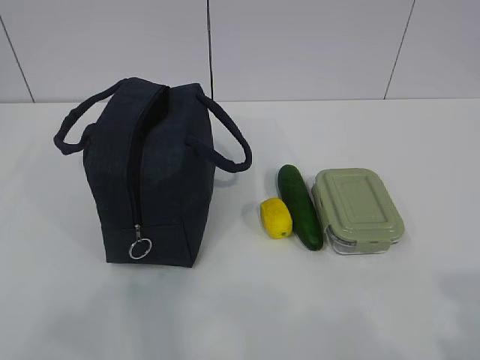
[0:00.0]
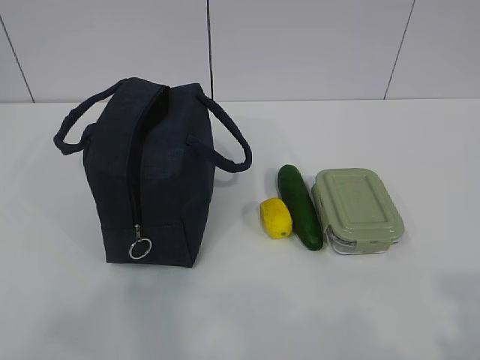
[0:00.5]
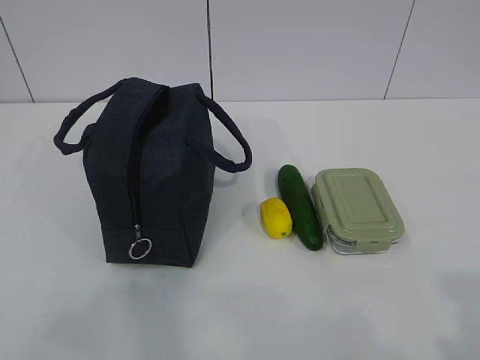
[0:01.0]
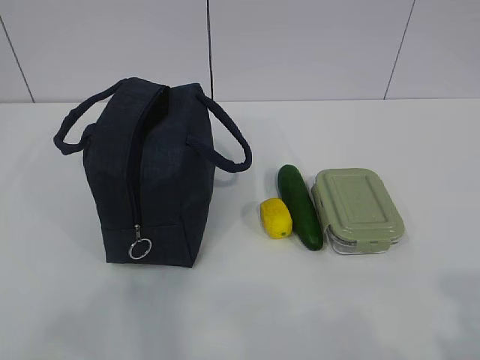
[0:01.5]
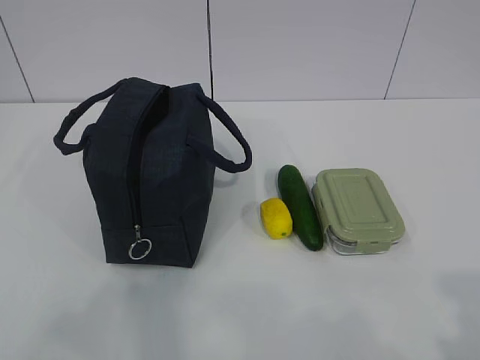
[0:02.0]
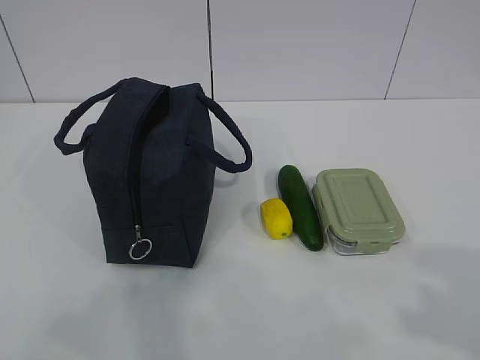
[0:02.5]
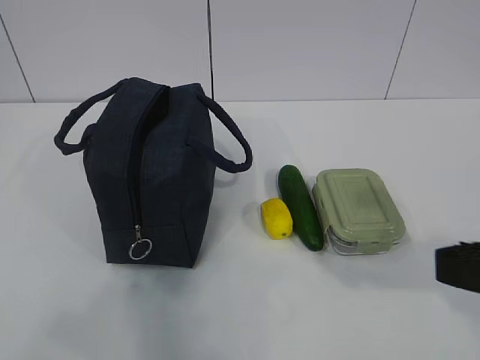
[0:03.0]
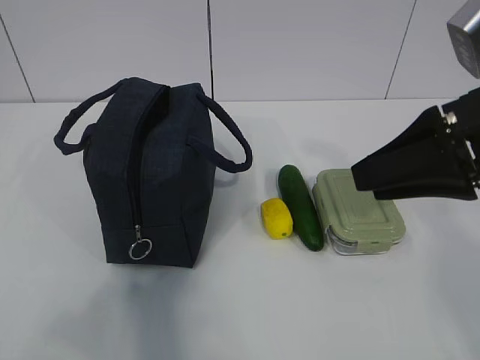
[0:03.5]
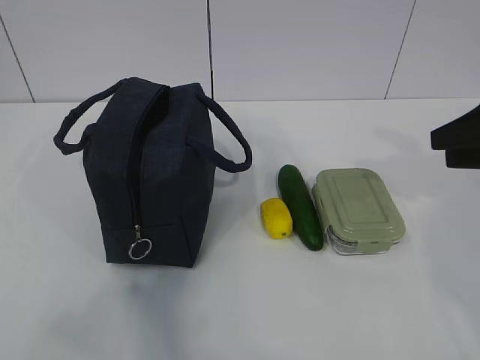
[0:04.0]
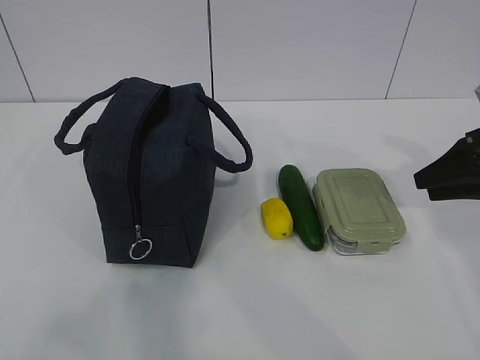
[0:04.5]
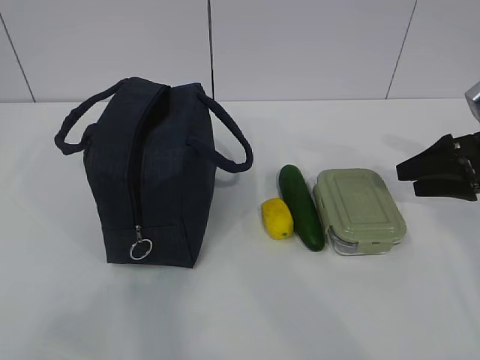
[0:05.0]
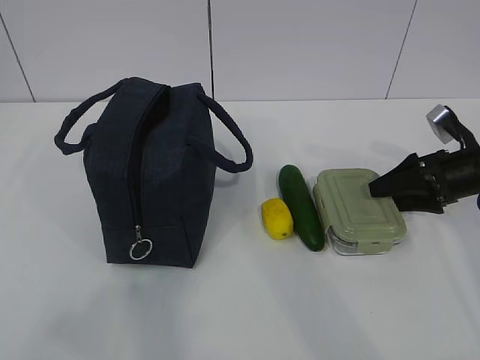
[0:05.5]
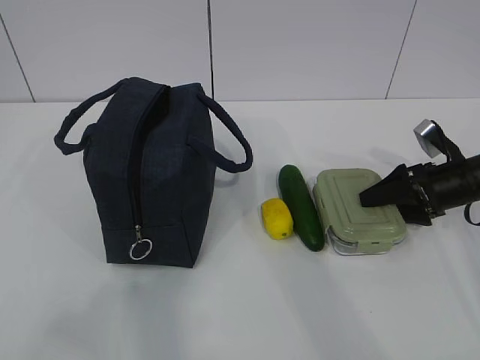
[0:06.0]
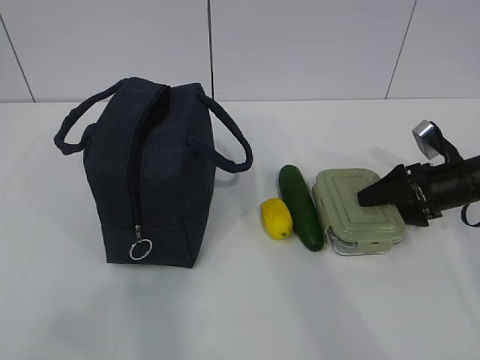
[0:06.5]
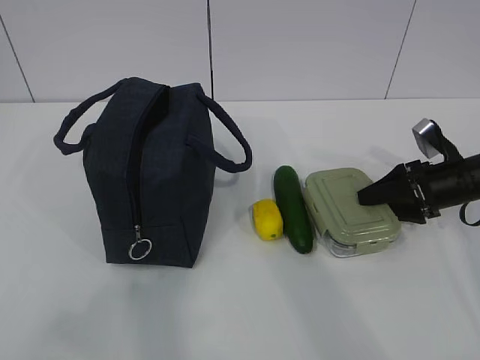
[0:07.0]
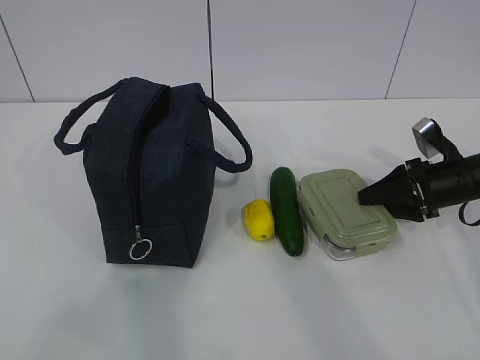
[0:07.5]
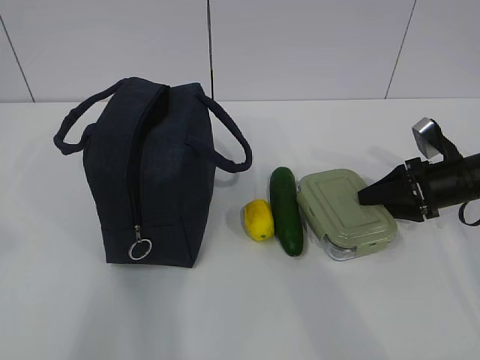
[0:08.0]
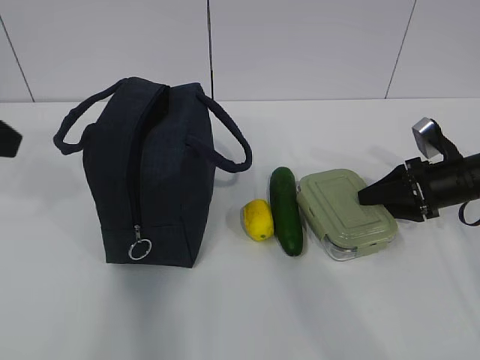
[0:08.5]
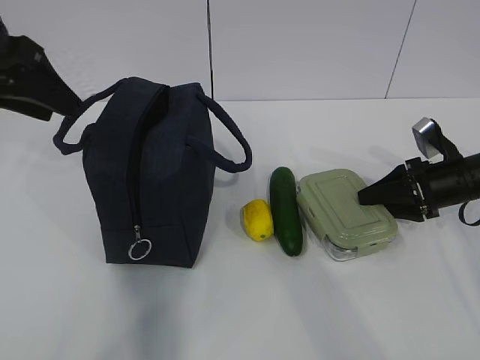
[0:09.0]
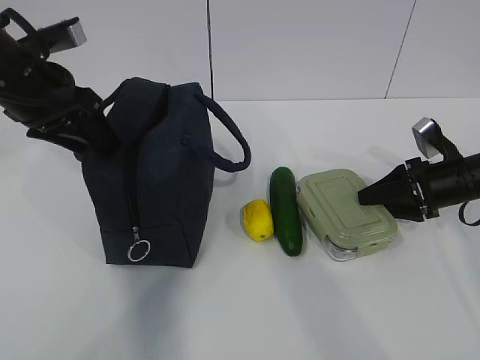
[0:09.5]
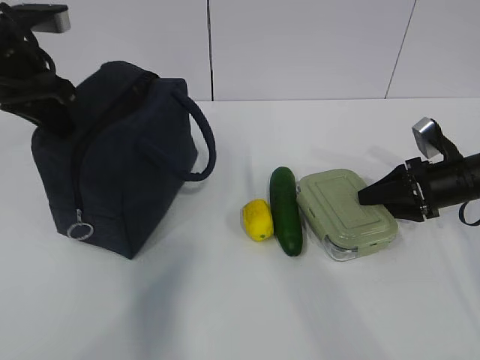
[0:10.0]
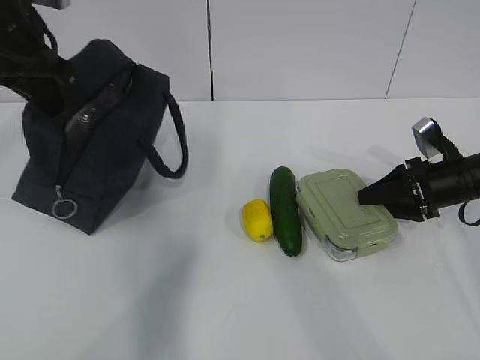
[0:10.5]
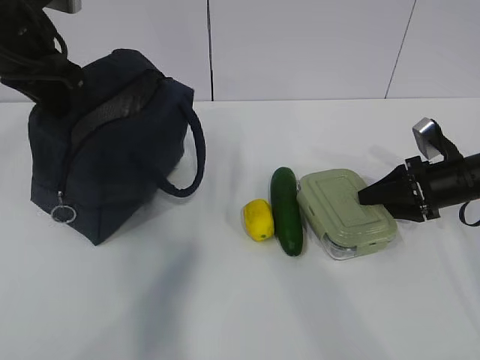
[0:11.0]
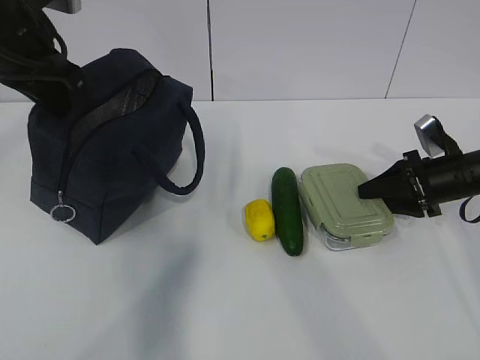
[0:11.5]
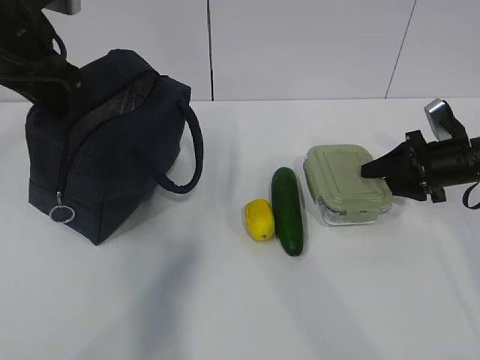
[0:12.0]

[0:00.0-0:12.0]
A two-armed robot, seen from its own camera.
Step, 0:00.0 to 0:06.5: Grasp the box with the right gripper.
Step, 0:07.0 to 0:09.5: Grasp the package with the left gripper.
0:02.0 to 0:04.0: The right gripper moves forward, some 30 cm.
0:04.0 to 0:06.0: The right gripper goes roughly 20 cm downward and forward, and opens up.
0:06.0 to 0:08.0: The left gripper heads forward and upward, covering roughly 10 cm. Meanwhile the right gripper closes.
0:08.0 to 0:10.0: The left gripper heads forward, covering approximately 25 cm, and closes up.
0:10.0 to 0:12.0: The grippers stay close to where they were, moving slightly.

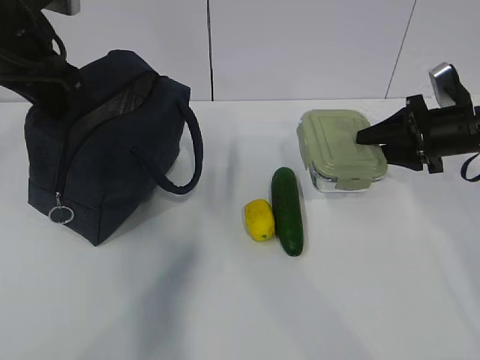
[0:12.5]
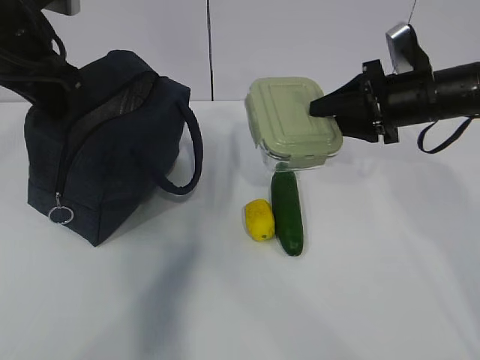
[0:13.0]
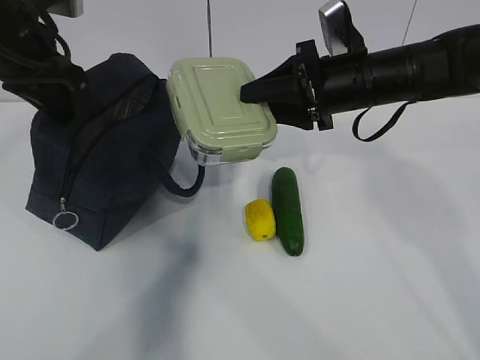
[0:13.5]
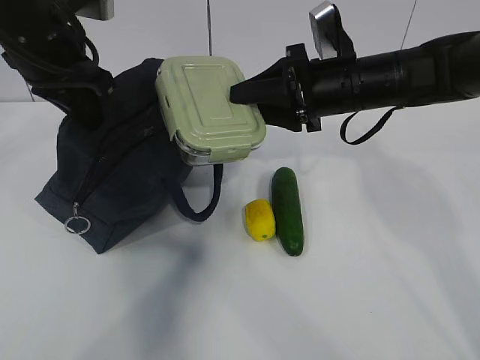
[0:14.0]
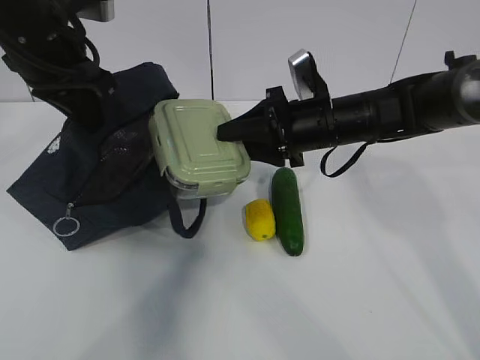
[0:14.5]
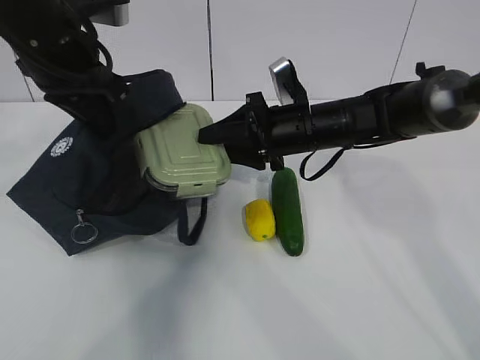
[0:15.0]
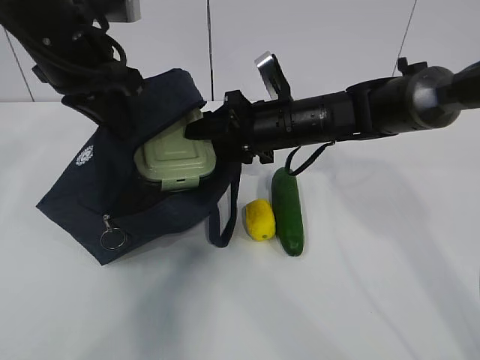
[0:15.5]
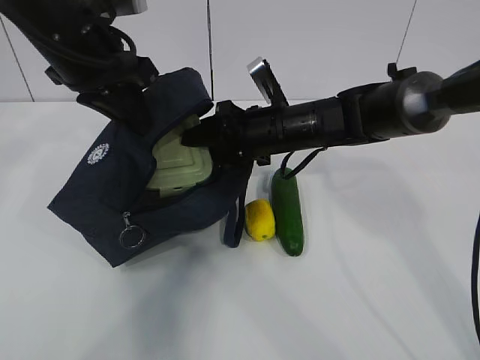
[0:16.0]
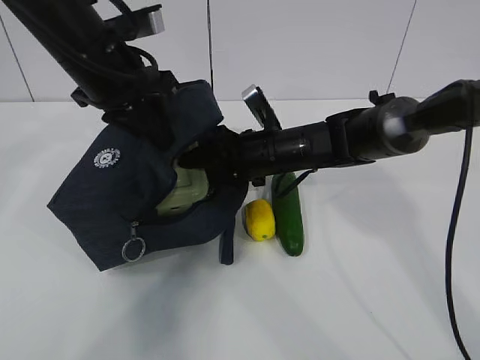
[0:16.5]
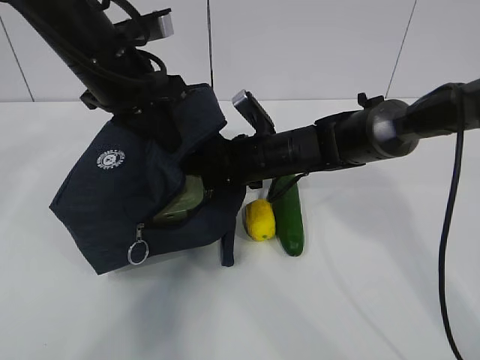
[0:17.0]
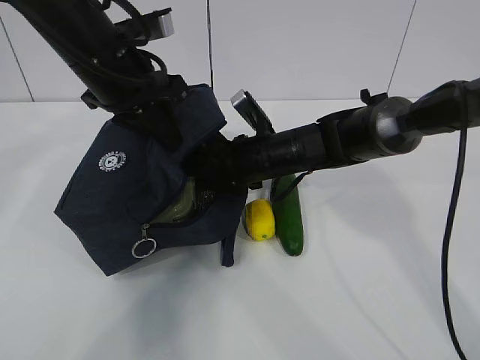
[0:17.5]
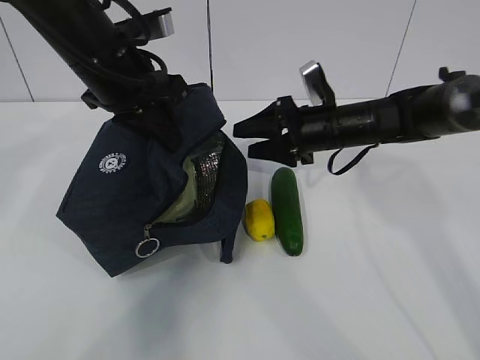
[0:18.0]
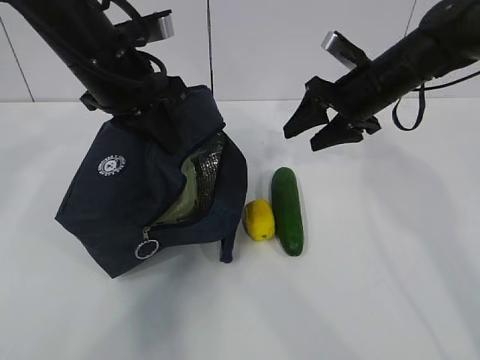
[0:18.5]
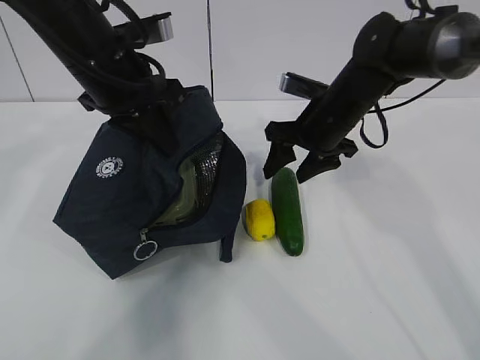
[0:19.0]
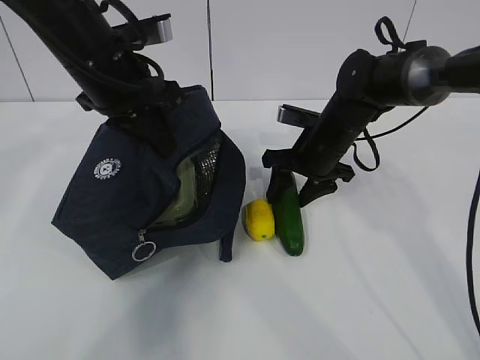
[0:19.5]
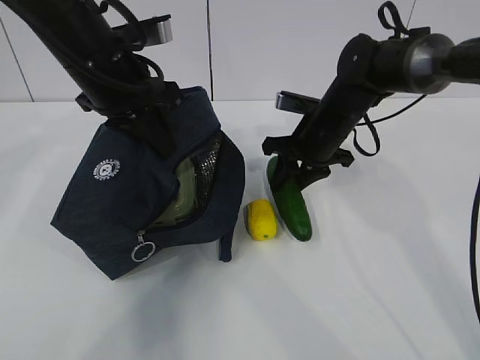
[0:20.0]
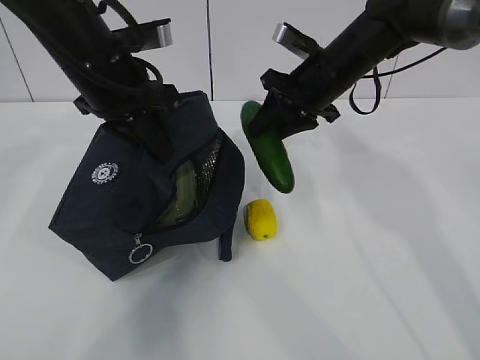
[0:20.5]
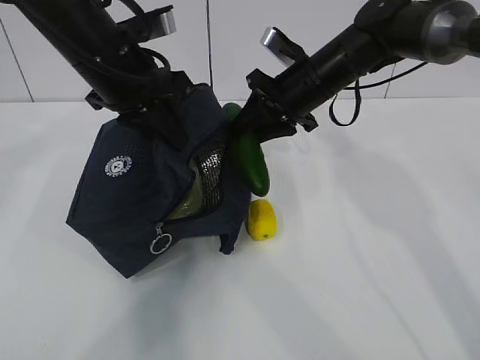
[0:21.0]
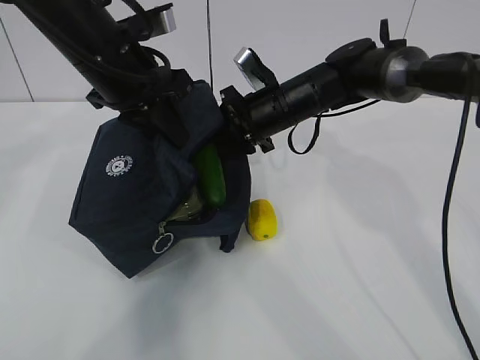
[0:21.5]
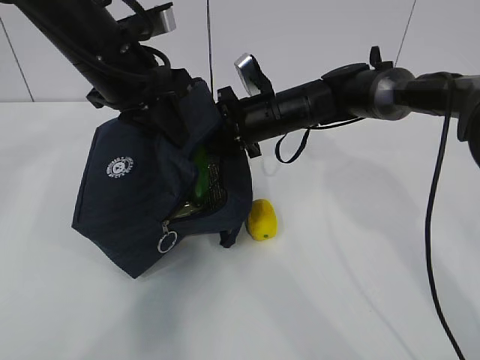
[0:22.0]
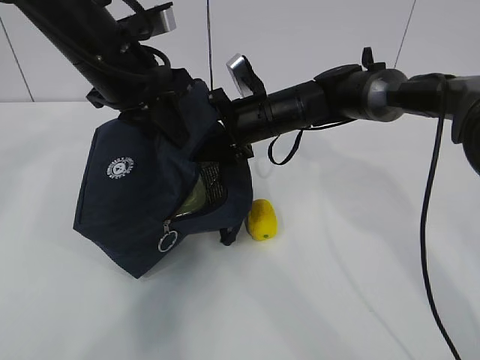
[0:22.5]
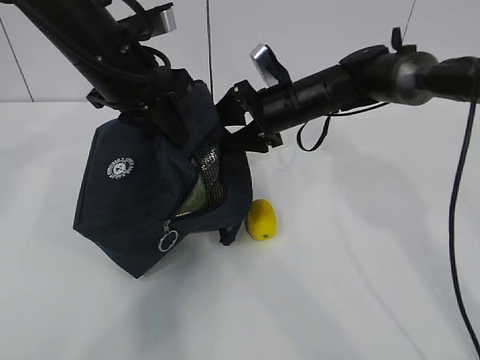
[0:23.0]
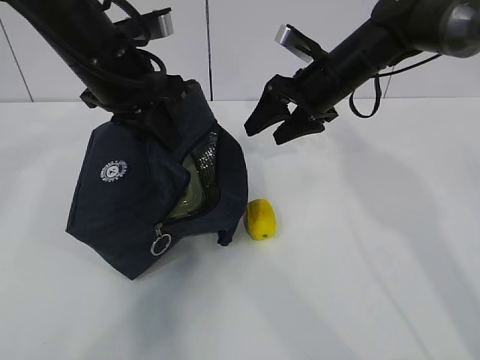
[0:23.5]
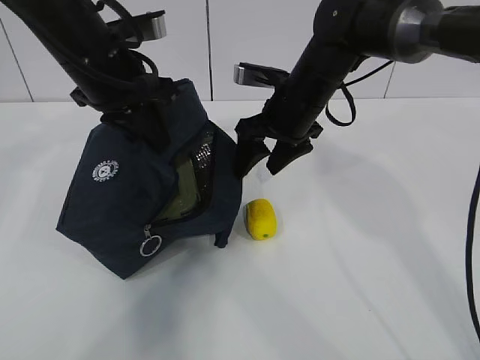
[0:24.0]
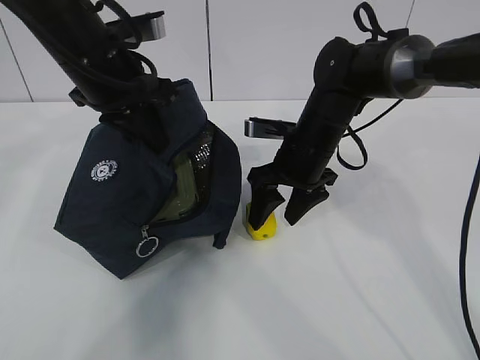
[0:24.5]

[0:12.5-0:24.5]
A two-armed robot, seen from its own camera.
Step, 0:12.5 to 0:17.5: Place the box into the package with the right gripper.
Step, 0:18.0 to 0:19.5: Grasp the cucumber with the right gripper.
Step, 0:20.0 to 0:22.5: Place the cucumber into the package with the right gripper.
0:12.5 to 0:14.5: The right gripper travels to the left by about 20 cm.
0:14.5 to 0:16.5: The left gripper moves roughly 5 cm, while the right gripper heads to the left and downward, covering roughly 10 cm.
0:16.5 to 0:18.5: The right gripper moves to the right and upward, some 15 cm.
0:18.5 to 0:20.5: The right gripper heads to the left, covering some 5 cm, reaches approximately 10 cm downward, then returns, and closes.
0:20.5 to 0:22.5: The right gripper goes some 10 cm to the left and downward, and opens up.
0:22.5 to 0:24.5: The right gripper moves backward, roughly 5 cm.

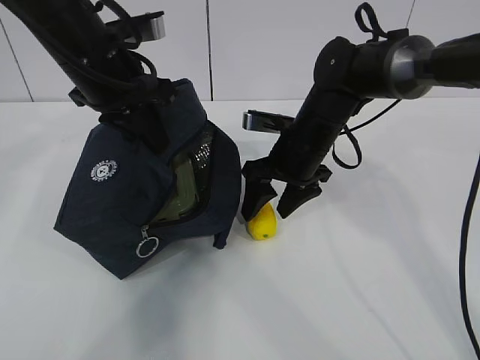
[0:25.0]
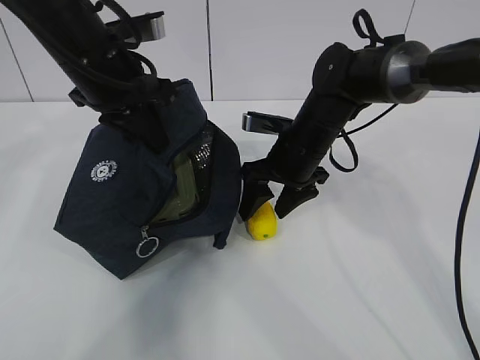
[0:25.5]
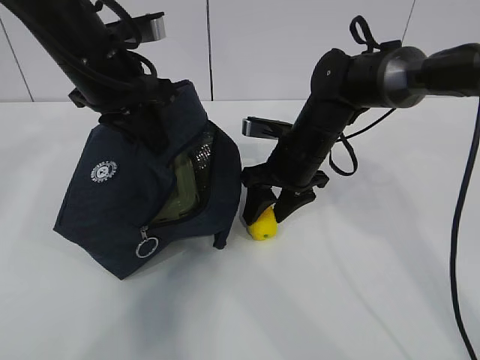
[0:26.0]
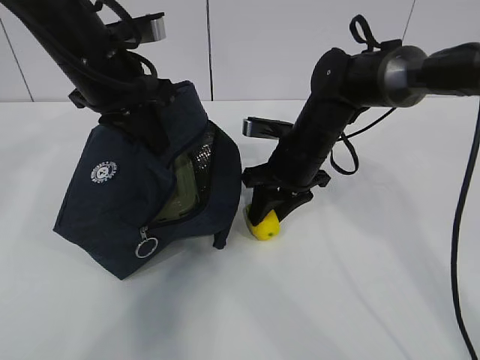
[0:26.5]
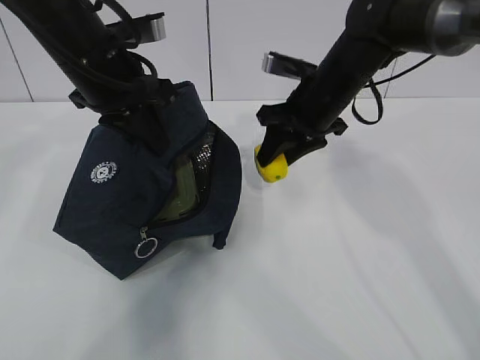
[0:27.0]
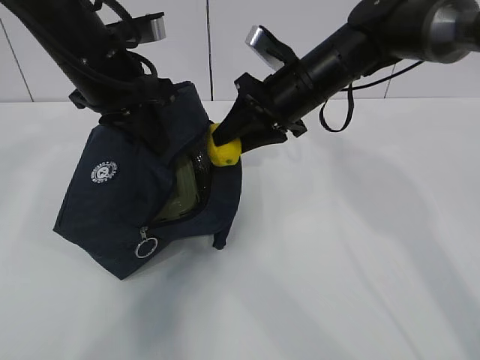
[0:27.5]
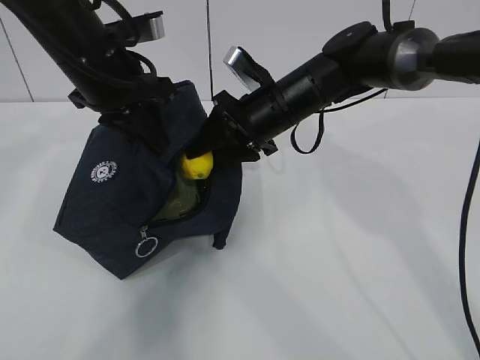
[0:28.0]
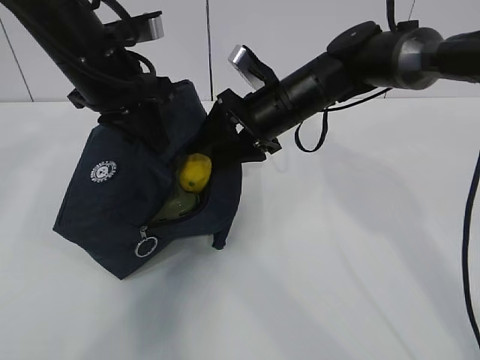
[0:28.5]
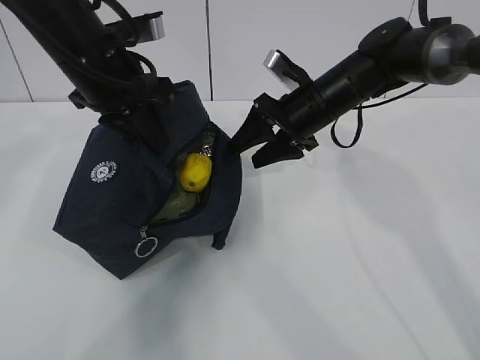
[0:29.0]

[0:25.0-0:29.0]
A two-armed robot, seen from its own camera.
0:25.0 to 0:27.0: The right gripper shifts some 5 cm upward, and closes.
0:27.0 to 0:29.0: The right gripper opens its fingers.
